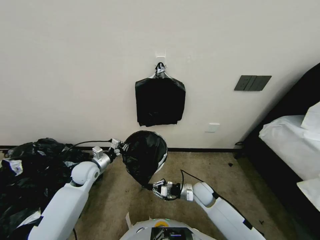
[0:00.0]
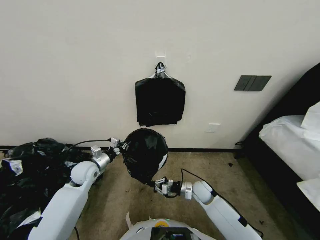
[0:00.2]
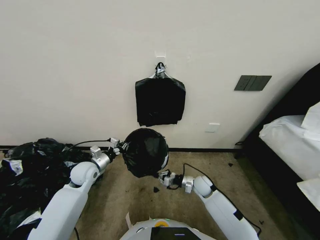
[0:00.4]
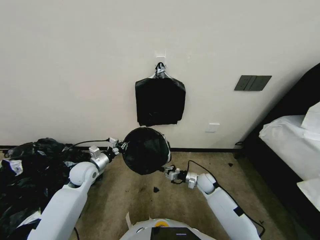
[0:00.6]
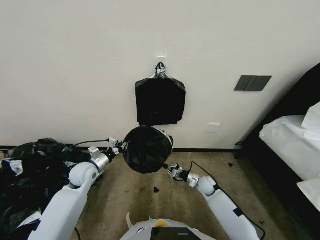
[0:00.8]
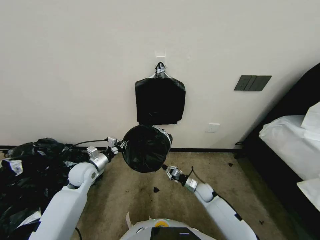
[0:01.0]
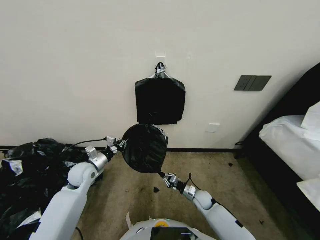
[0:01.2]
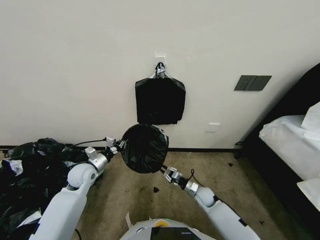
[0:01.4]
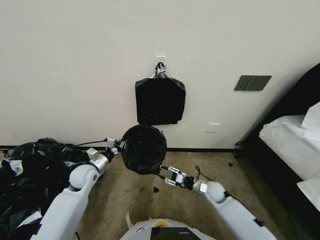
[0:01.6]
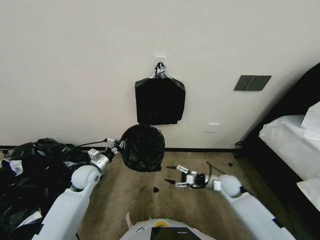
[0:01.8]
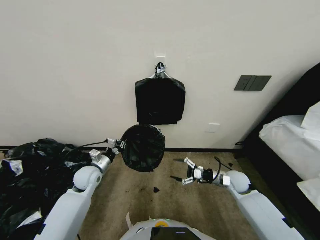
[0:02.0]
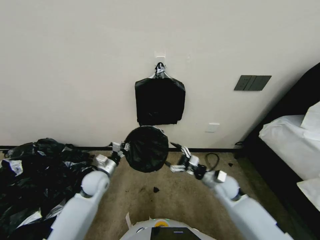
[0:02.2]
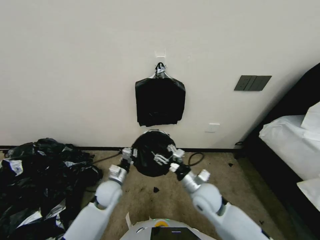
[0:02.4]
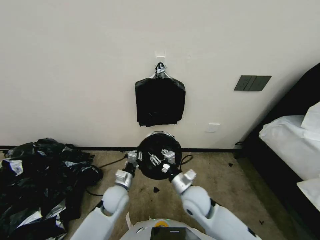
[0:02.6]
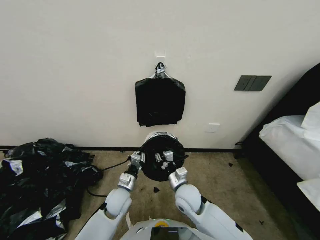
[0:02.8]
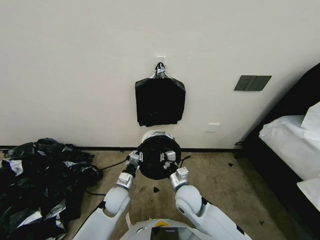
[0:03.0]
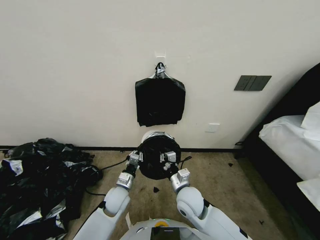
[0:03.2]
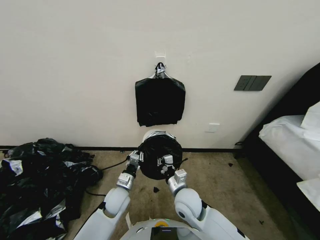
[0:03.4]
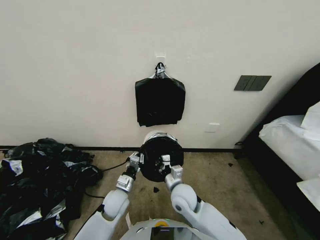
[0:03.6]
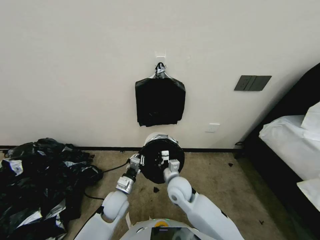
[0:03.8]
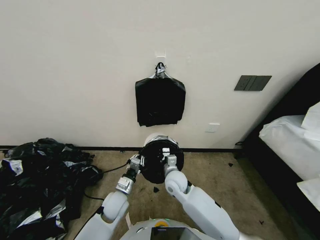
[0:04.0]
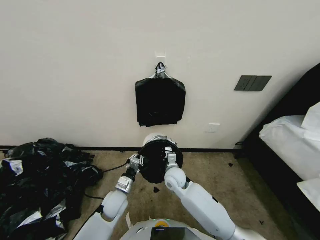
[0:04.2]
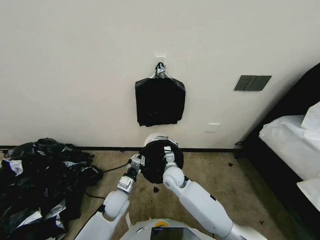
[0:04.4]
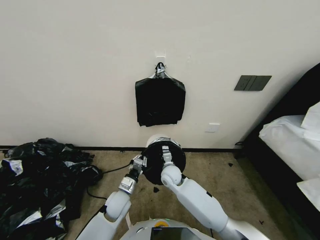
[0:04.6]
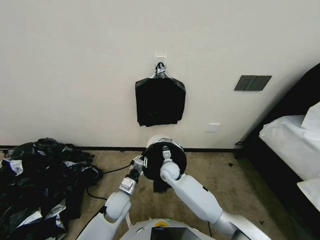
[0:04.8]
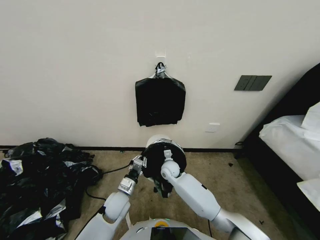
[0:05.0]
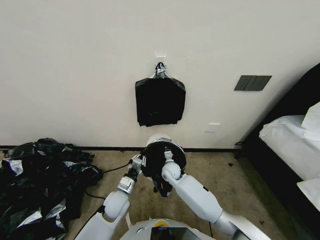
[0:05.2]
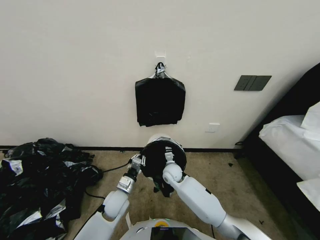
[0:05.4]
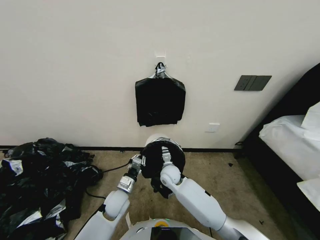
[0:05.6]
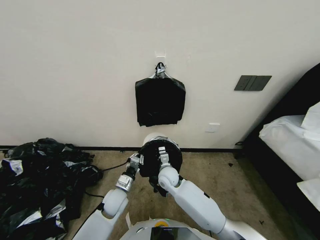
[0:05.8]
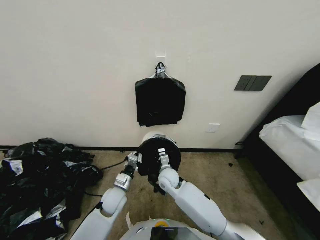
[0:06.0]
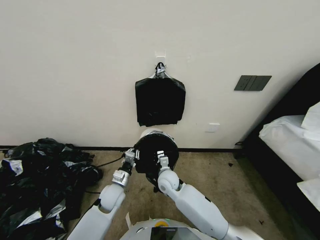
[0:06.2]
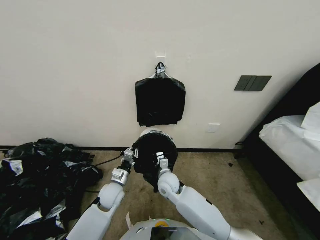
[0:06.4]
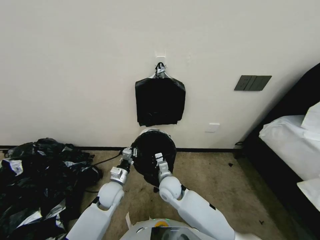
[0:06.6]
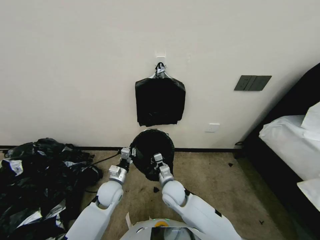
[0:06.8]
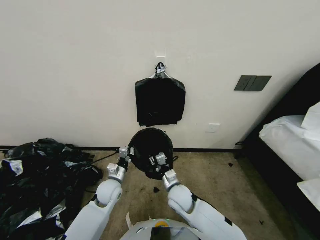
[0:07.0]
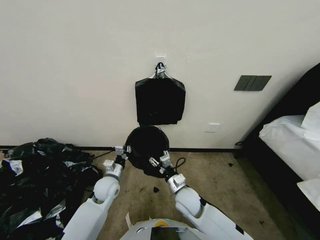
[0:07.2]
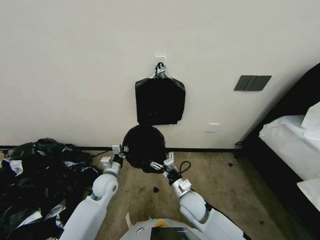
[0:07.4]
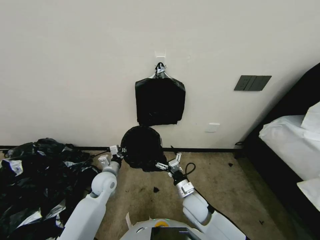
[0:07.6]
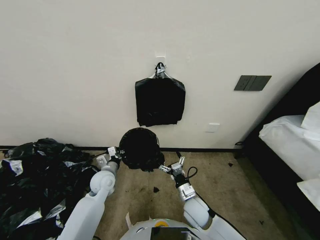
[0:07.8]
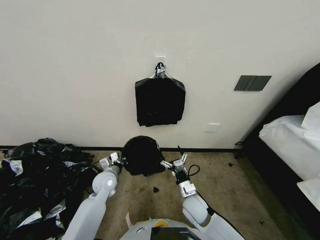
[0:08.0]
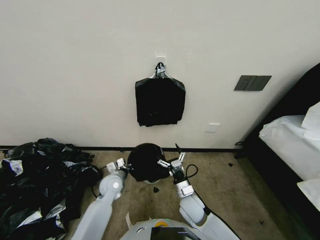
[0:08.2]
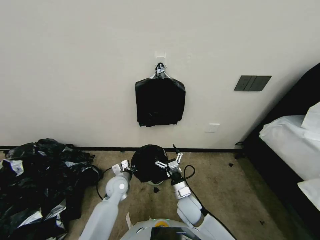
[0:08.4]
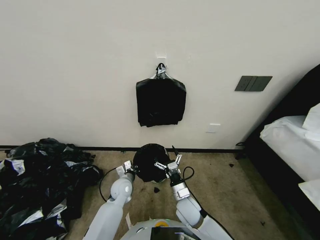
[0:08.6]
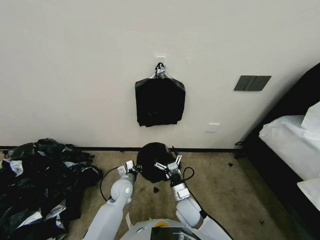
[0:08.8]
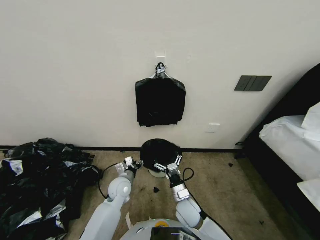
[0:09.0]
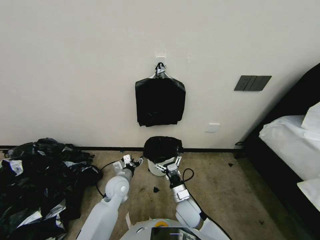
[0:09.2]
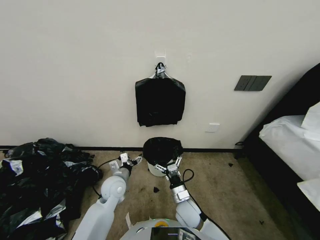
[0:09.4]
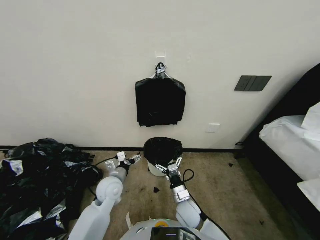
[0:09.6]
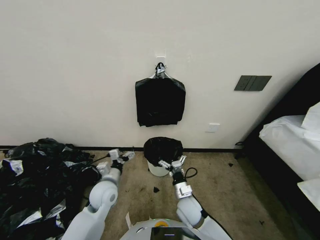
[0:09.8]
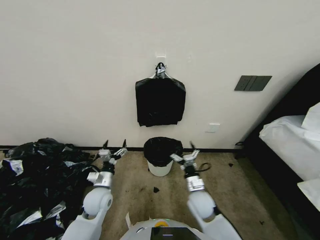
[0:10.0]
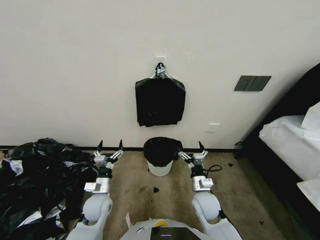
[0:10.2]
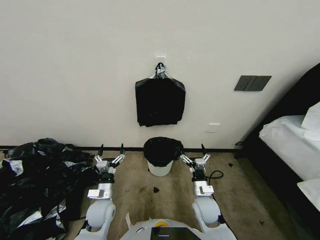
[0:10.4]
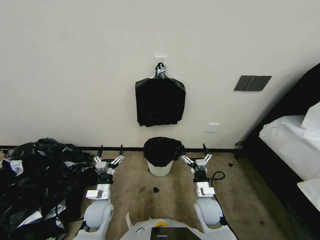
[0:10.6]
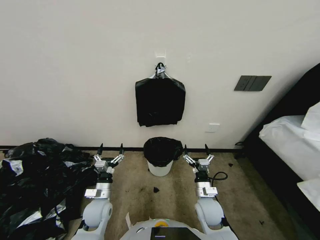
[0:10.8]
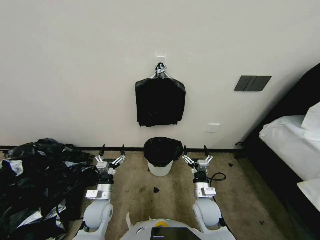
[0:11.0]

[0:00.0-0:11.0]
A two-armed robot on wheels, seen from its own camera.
Task of the whole recording: Place a trash bag onto the trash bin.
0:00.0 to 0:01.6: The right gripper heads downward, covering about 5 cm.
0:01.6 to 0:03.2: The left gripper heads to the right, downward and backward, covering some 20 cm; the right gripper heads upward, to the left and backward, covering about 20 cm, and opens and closes again.
0:03.2 to 0:04.8: The right gripper heads forward, downward and to the left, covering approximately 15 cm.
0:04.8 to 0:06.2: The grippers move only a little.
0:06.2 to 0:07.8: The left gripper shifts approximately 5 cm forward; the right gripper moves backward and to the right, approximately 15 cm, and opens its fingers.
0:07.8 to 0:09.4: The left gripper goes some 5 cm to the right, goes downward and returns, about 10 cm each way, and opens its fingers.
0:09.4 to 0:11.0: The left gripper is displaced backward and to the left by about 10 cm, while the right gripper moves to the right, about 10 cm.
